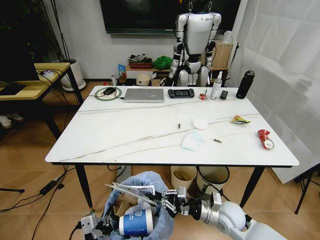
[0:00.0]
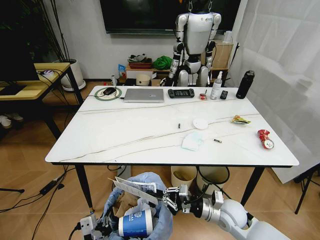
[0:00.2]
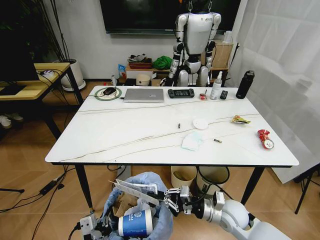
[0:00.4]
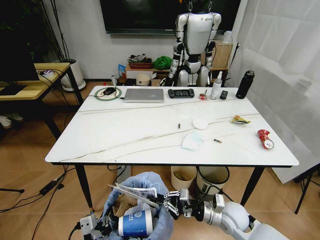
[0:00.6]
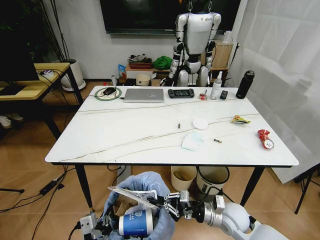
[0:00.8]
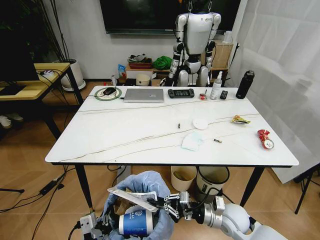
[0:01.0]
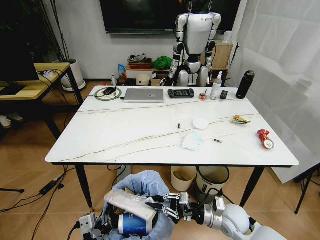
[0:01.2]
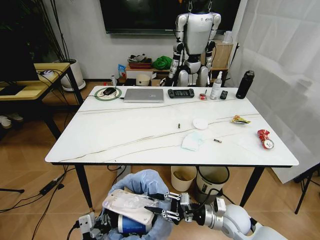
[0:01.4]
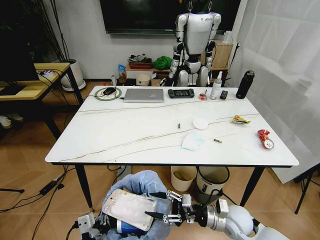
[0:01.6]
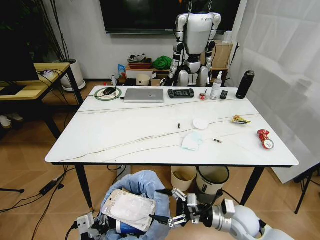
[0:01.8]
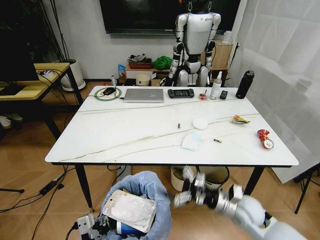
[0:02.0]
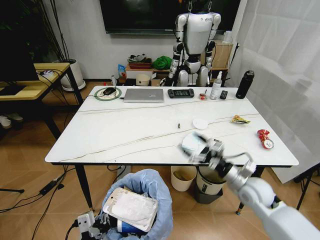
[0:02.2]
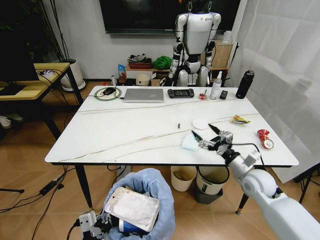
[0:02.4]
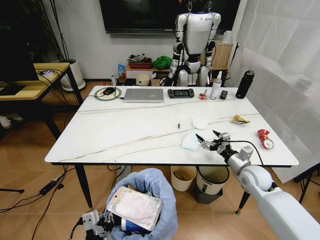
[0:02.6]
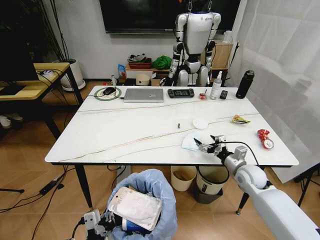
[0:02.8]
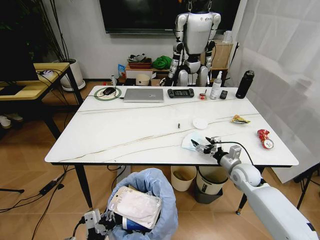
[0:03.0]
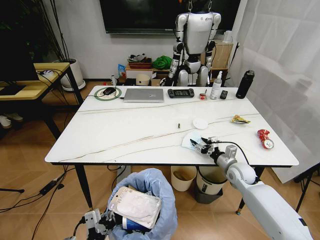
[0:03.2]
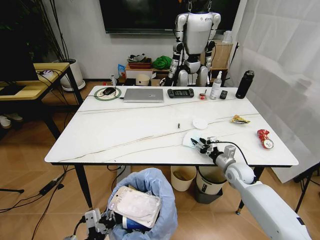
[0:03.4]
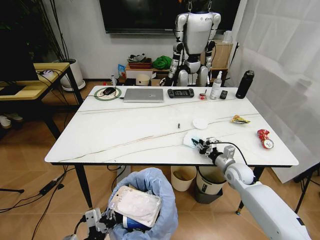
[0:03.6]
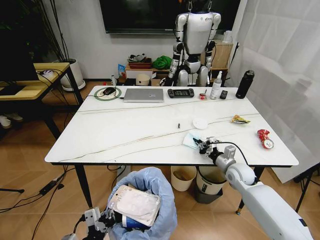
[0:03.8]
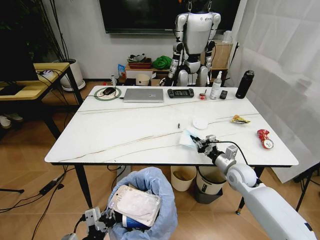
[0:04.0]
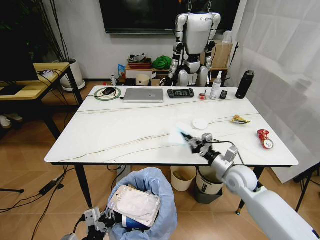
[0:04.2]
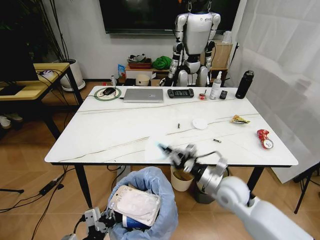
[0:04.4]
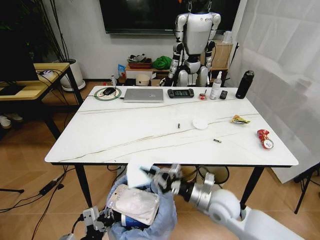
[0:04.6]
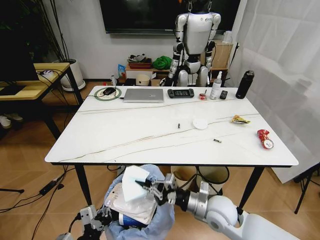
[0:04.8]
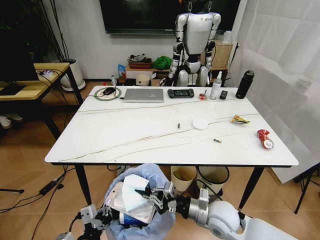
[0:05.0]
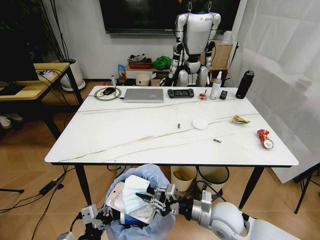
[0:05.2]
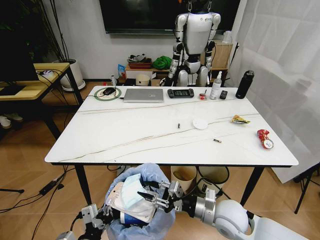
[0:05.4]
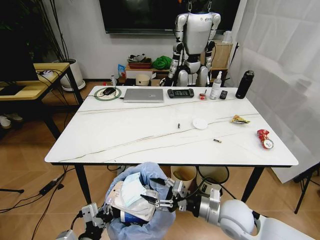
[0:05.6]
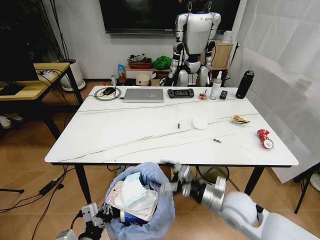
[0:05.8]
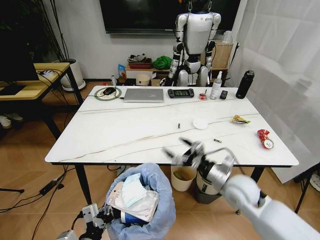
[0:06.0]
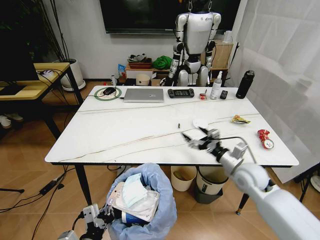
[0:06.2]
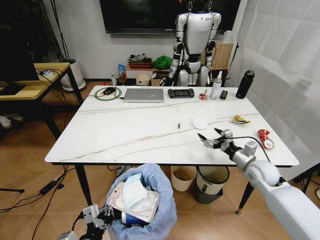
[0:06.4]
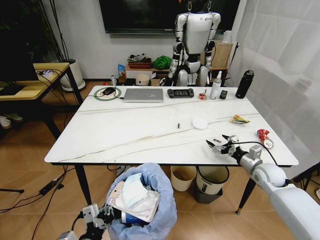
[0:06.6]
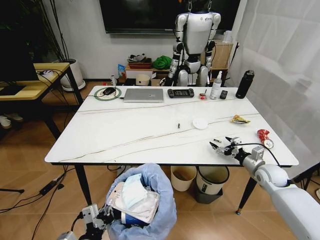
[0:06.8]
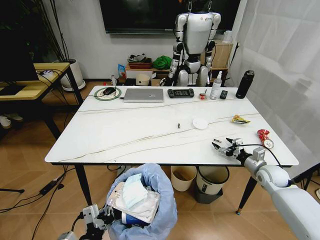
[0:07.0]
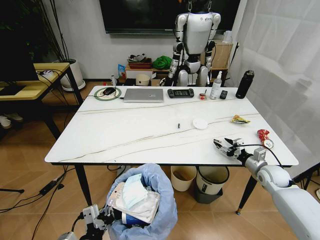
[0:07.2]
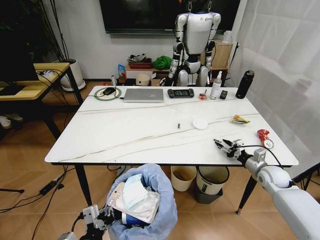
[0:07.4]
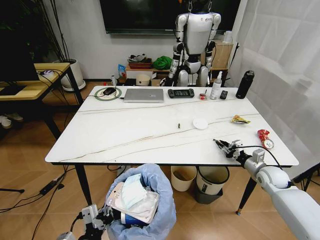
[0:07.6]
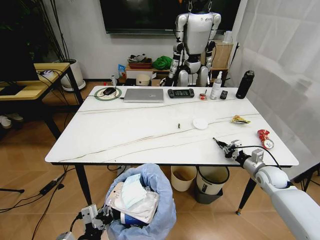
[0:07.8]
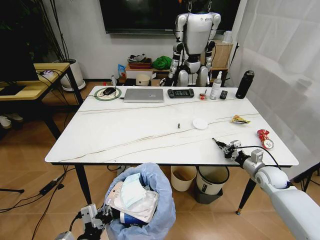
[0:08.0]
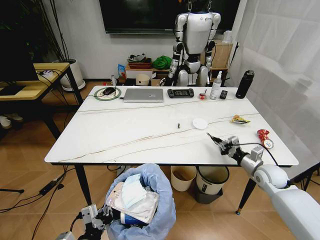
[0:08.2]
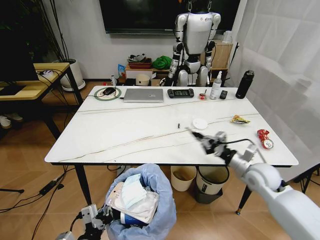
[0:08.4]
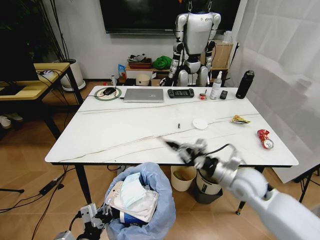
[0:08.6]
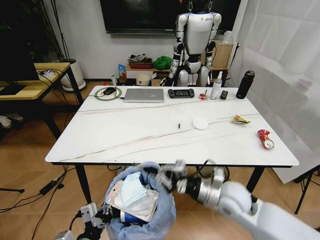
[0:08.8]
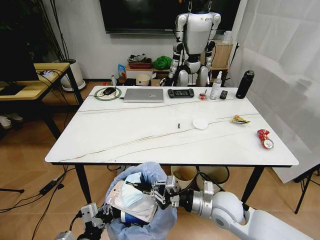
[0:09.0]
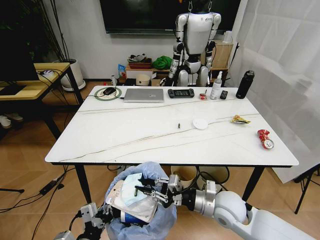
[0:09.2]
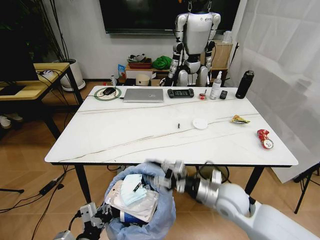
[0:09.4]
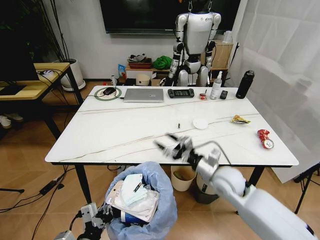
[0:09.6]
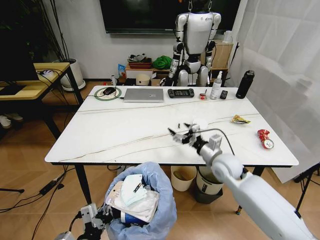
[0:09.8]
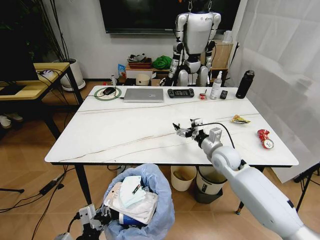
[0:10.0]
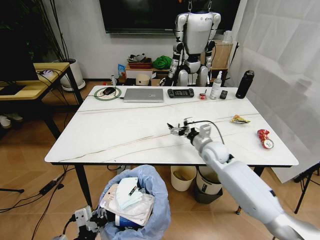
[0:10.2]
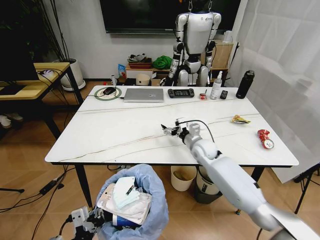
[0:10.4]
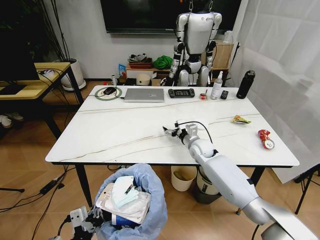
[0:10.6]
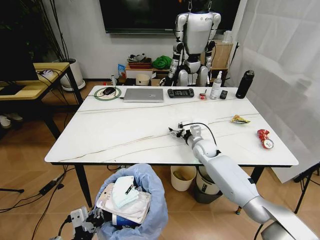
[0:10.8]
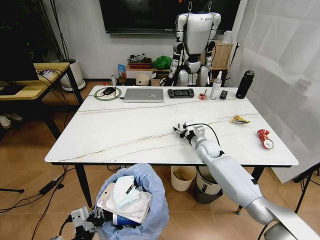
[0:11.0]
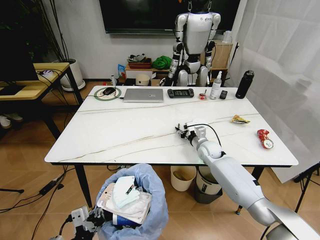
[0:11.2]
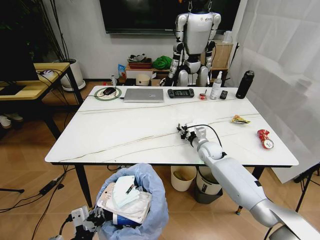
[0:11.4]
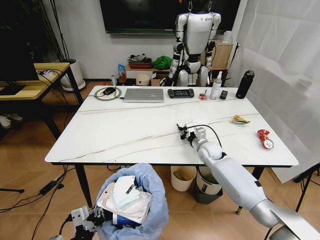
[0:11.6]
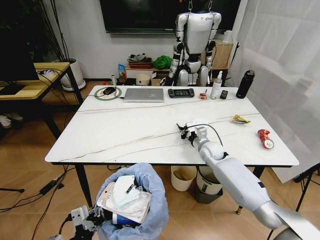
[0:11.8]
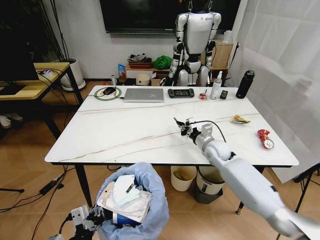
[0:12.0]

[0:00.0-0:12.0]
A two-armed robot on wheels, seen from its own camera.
Task of the whole recording: Pick up the trash bin and place the trash from the table into it.
0:00.0 to 0:01.6: The right gripper opens.
0:01.6 to 0:03.0: The right gripper shifts approximately 15 cm forward and to the right.
0:03.0 to 0:04.4: The right gripper is displaced to the left, backward and upward by roughly 15 cm, and closes.
0:04.4 to 0:06.0: The right gripper reaches some 10 cm backward, then returns, and opens its fingers.
0:06.0 to 0:07.6: The right gripper moves to the right, forward and downward, about 25 cm, and closes up.
0:07.6 to 0:09.0: The right gripper is displaced to the left and backward by roughly 30 cm.
0:09.0 to 0:10.4: The right gripper shifts some 20 cm forward, and opens up.
0:10.4 to 0:12.0: The right gripper heads to the right, covering approximately 5 cm, and closes its fingers.

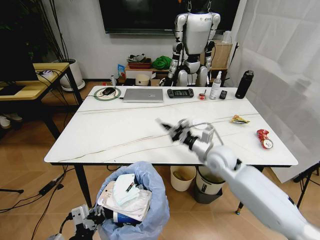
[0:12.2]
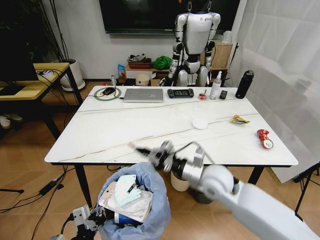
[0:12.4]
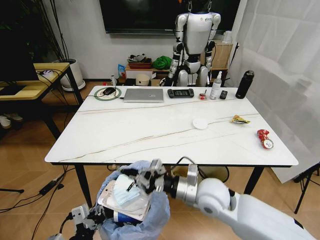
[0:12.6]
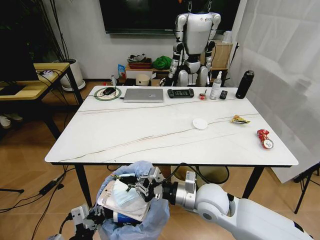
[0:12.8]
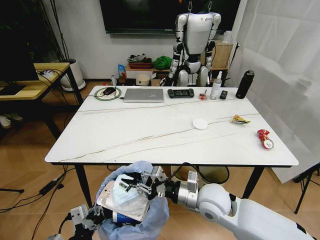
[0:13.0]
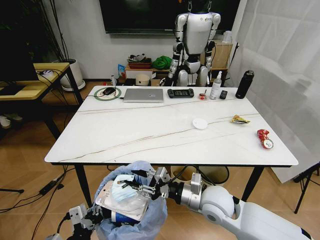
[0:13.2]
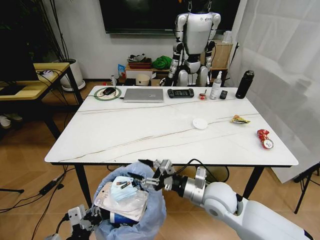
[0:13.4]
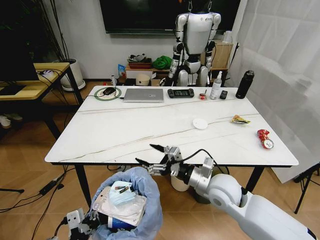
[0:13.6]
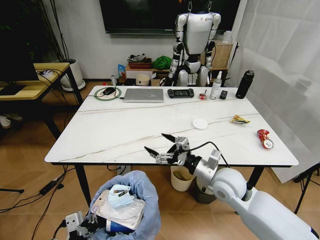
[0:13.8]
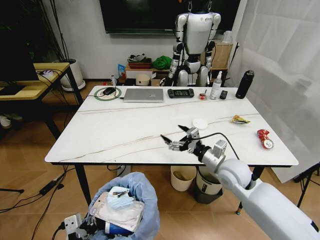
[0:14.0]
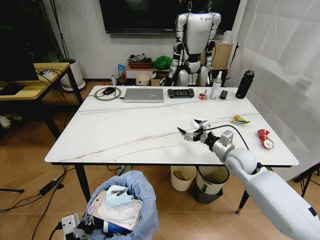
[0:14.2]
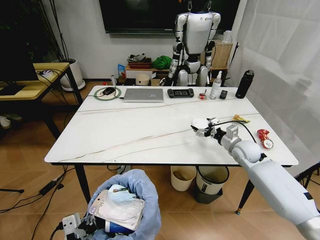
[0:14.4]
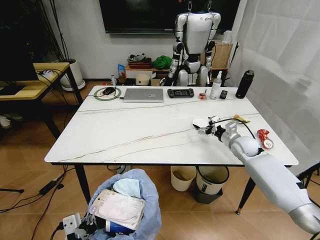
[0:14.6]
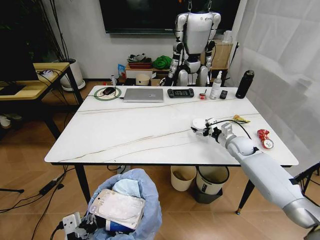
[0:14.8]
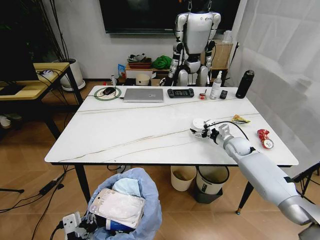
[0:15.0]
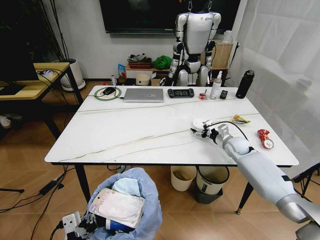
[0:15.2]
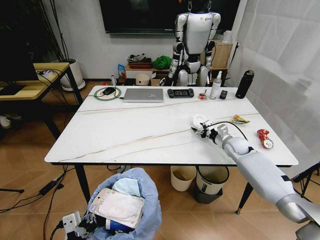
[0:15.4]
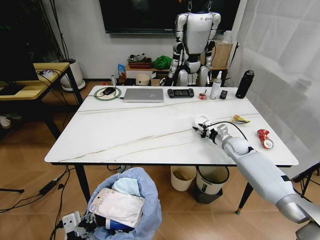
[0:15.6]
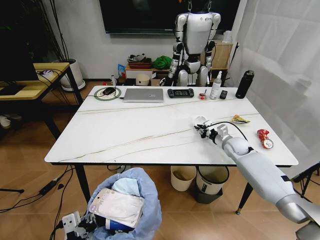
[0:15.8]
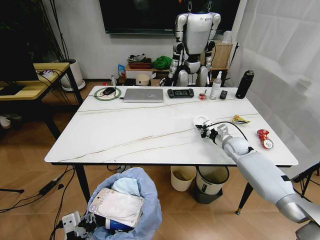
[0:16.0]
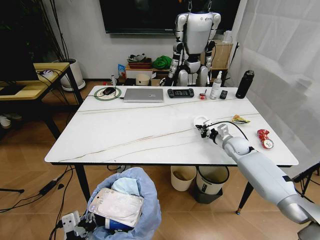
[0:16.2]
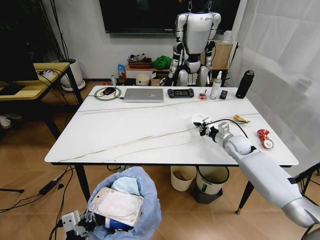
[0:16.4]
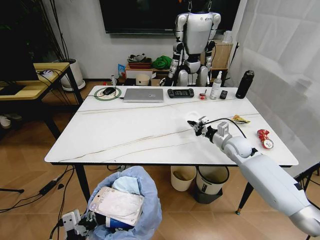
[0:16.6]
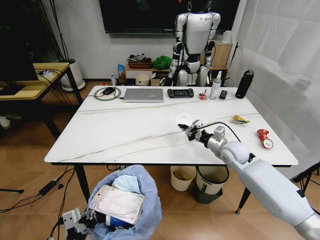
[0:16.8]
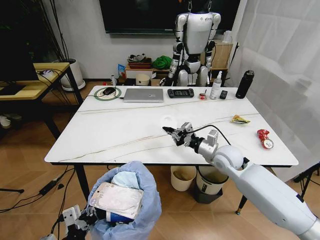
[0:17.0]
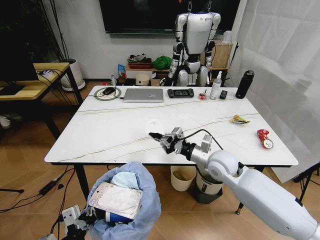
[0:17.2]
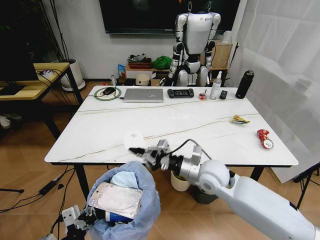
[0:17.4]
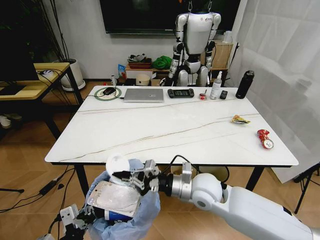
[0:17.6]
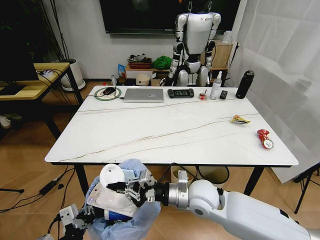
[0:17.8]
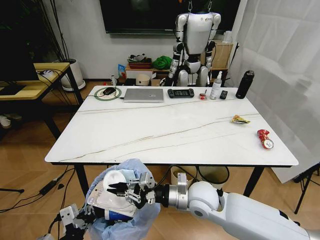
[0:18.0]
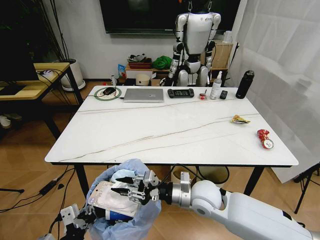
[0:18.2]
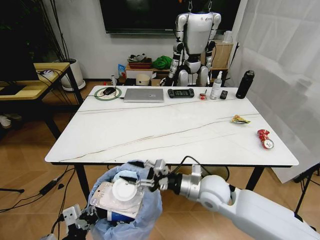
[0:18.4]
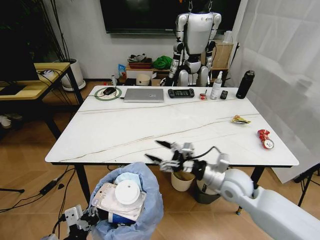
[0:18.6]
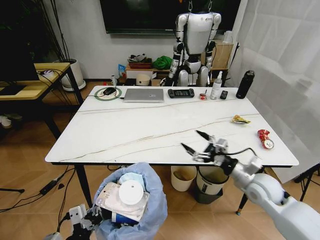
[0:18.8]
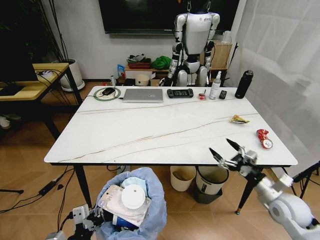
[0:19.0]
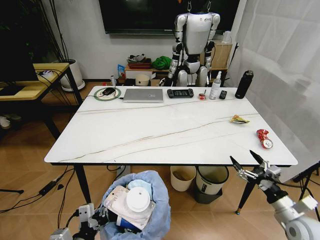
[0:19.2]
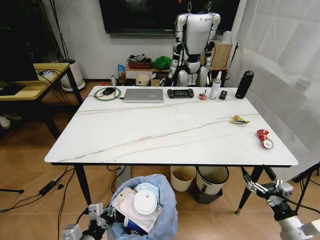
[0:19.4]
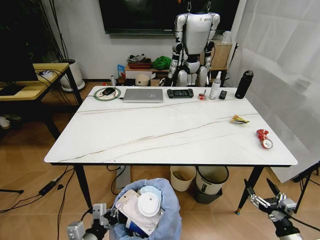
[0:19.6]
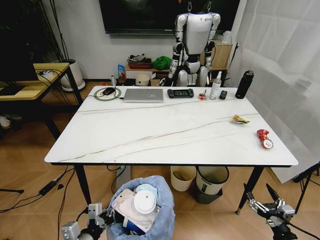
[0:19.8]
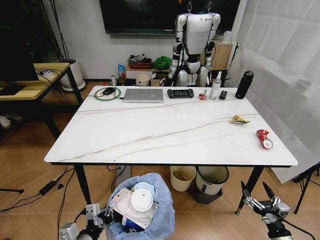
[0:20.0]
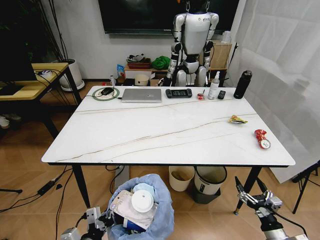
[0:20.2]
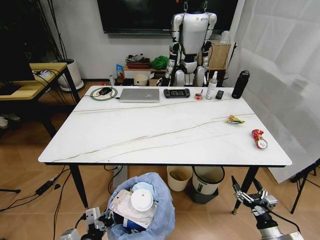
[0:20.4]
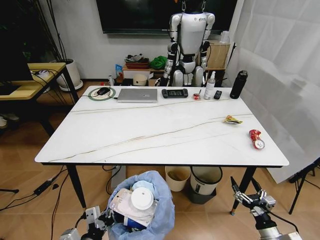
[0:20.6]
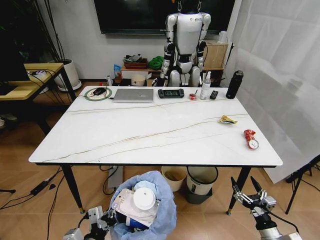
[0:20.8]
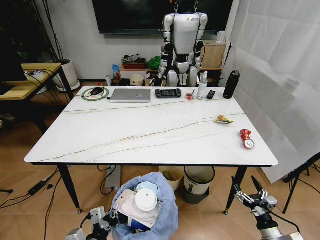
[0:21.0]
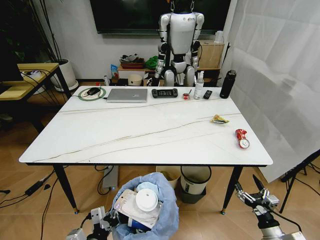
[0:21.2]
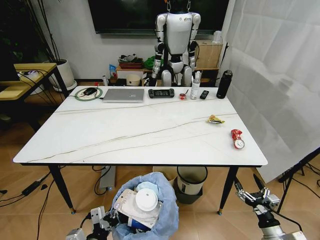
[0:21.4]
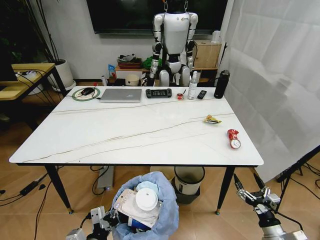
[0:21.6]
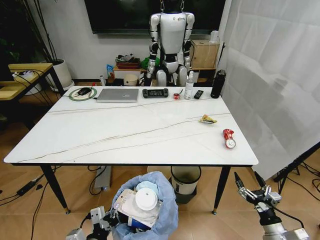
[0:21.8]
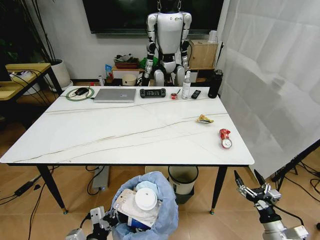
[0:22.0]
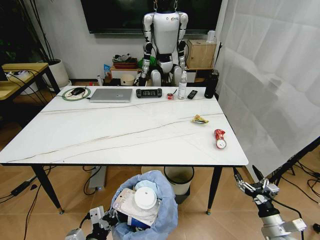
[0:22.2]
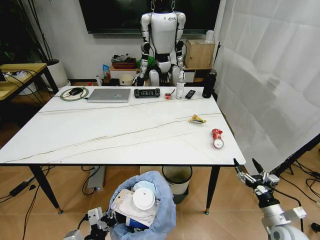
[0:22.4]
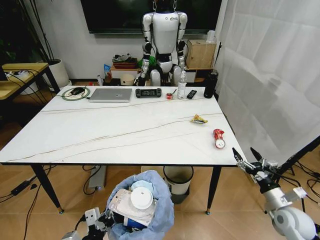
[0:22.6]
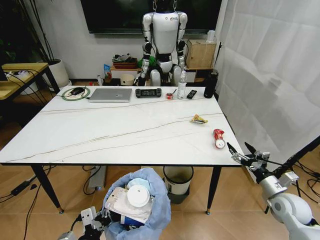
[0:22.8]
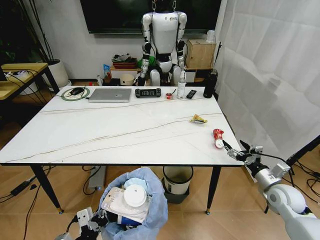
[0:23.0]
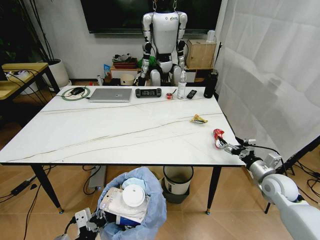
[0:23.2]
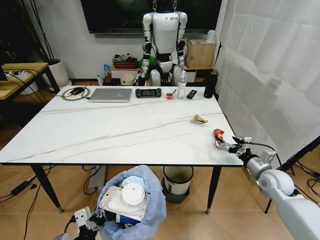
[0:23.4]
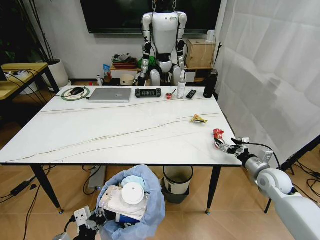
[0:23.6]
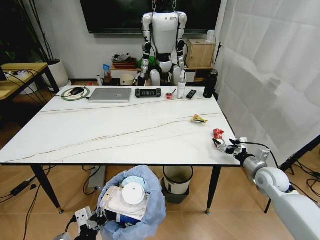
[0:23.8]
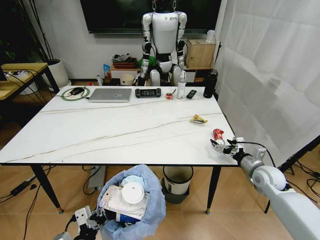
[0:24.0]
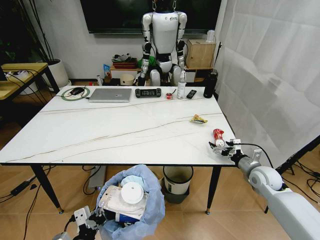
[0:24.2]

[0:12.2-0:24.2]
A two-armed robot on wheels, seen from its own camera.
Task of the whole recording: Pick up the trash bin and place the trash from the table into it.
0:12.2 to 0:13.8: The right gripper goes some 10 cm backward, and opens its fingers.
0:13.8 to 0:15.2: The right gripper travels forward and to the right by roughly 25 cm.
0:15.2 to 0:16.6: The right gripper ends up some 5 cm from where it was, and closes its fingers.
0:16.6 to 0:18.2: The right gripper goes some 25 cm backward and to the left.
0:18.2 to 0:19.8: The right gripper is displaced to the right, backward and downward by roughly 35 cm, and opens; the left gripper goes approximately 5 cm downward.
0:19.8 to 0:21.2: The right gripper changes place by approximately 5 cm.
0:21.2 to 0:22.6: The right gripper heads forward and upward, covering approximately 15 cm.
0:22.6 to 0:24.2: The right gripper travels forward by approximately 15 cm.
